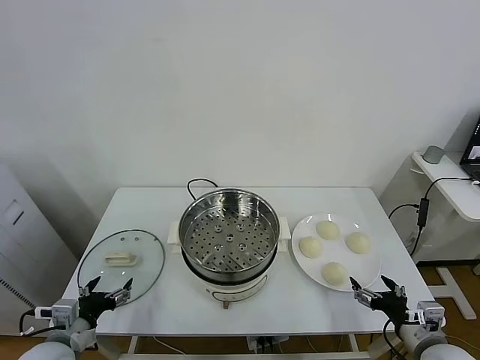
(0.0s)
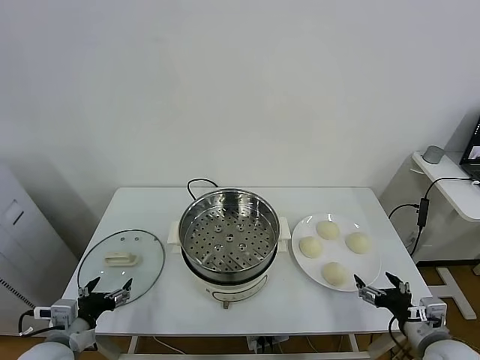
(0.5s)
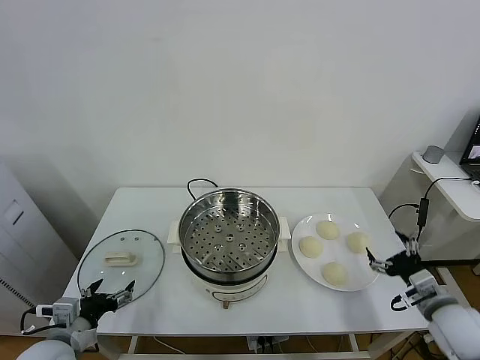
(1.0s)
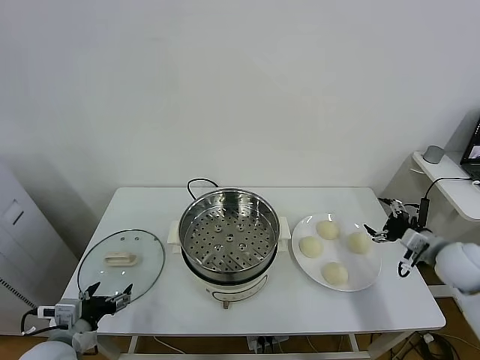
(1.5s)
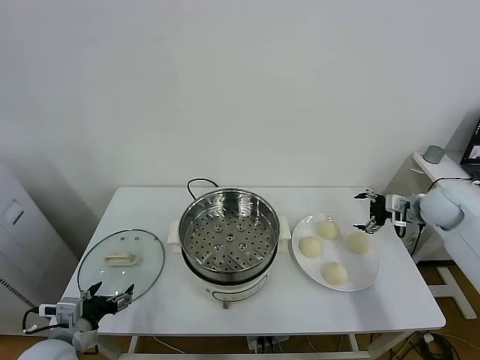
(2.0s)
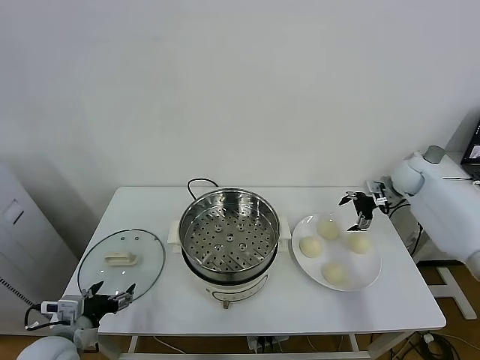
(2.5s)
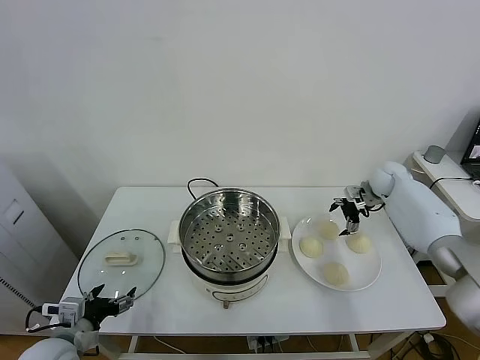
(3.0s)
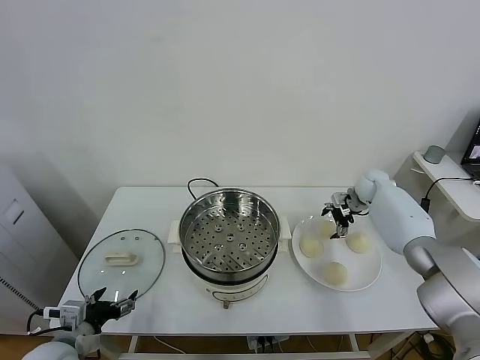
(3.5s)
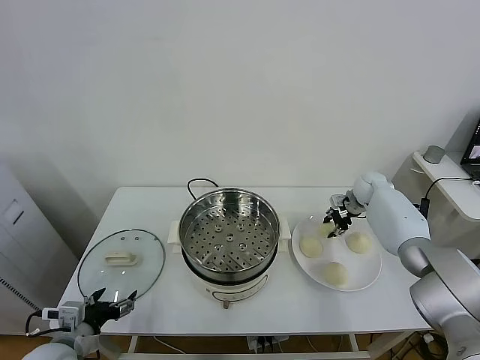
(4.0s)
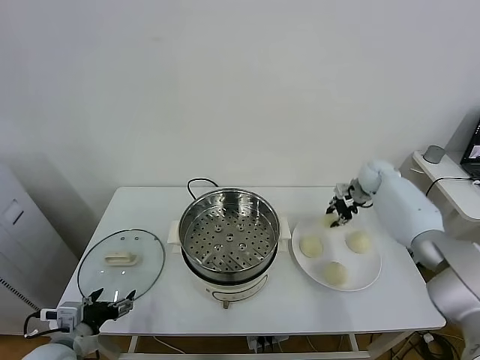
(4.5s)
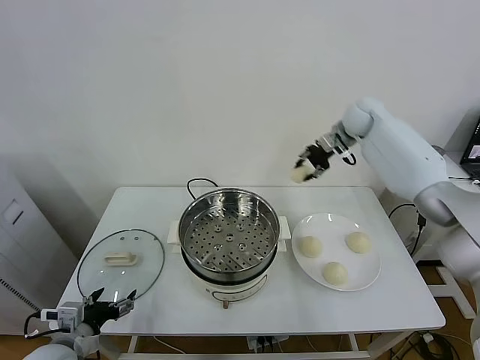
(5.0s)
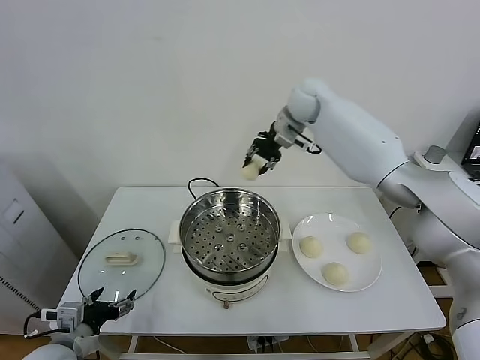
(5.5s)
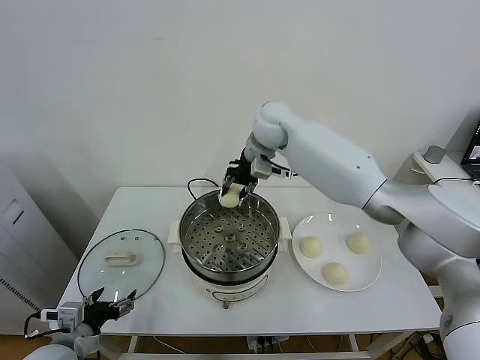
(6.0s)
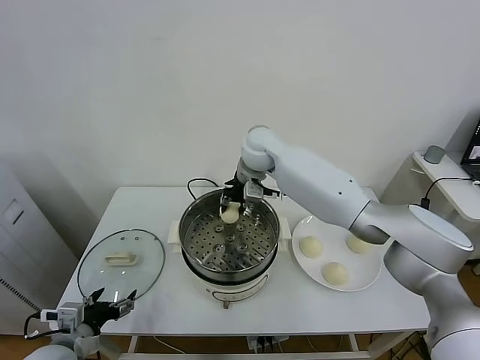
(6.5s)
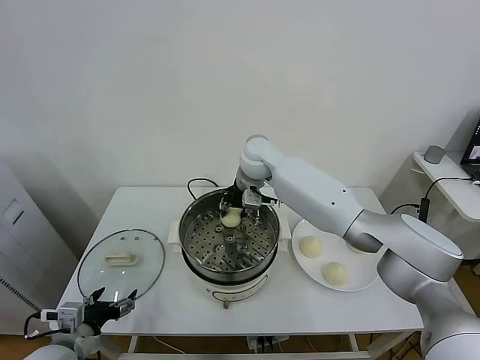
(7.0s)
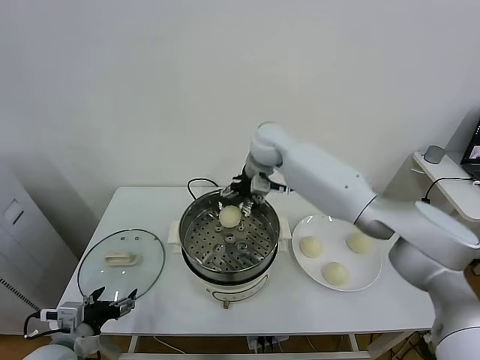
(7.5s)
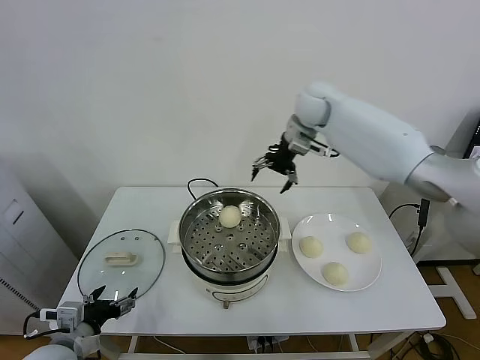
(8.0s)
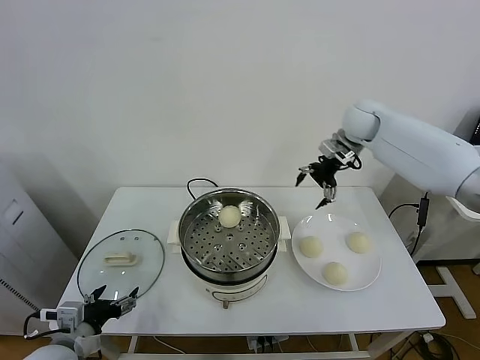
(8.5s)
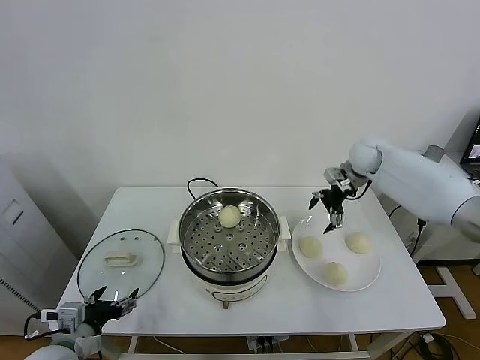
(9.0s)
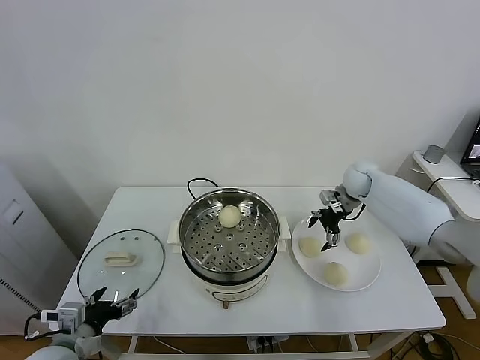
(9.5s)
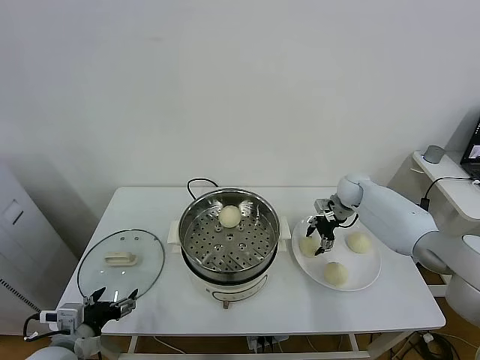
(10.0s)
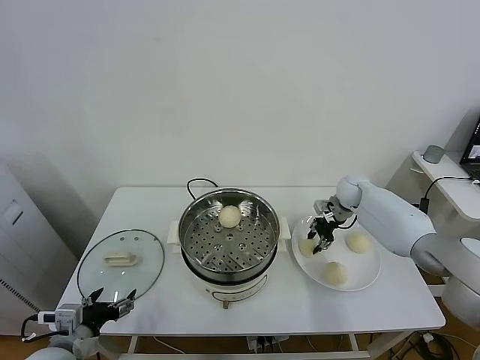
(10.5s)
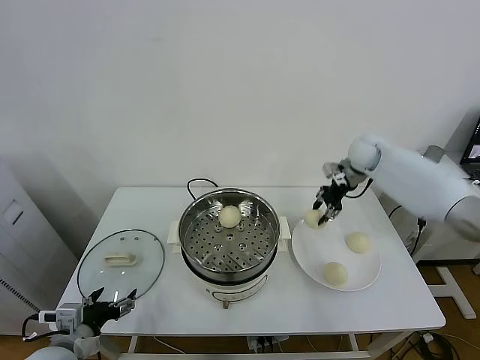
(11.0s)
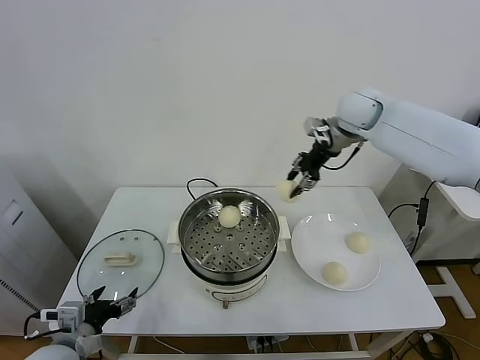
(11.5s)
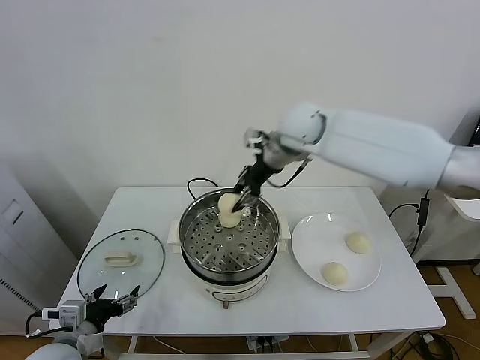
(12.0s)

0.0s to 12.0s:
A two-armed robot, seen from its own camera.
Task of the whole recording: take steamed baozi put them in steamer.
Step, 0.0s to 4.0s: Grasp the baozi in the plate with right gripper.
Step, 4.5s to 7.0s: Place the baozi on the steamer with right gripper.
Step, 7.5s to 10.0s: Grasp the baozi in the plate with right gripper.
2.0s to 4.0s: The right gripper heads forward, to the left and downward, covering roughly 15 cm, and closes.
4.0s to 6.0s: The right gripper travels to the left and upward by approximately 40 cm.
6.0s to 8.0s: The right gripper shifts about 15 cm to the right, and opens.
8.0s to 10.0s: The right gripper travels downward and to the right by about 30 cm, and closes.
10.0s to 12.0s: The right gripper goes roughly 30 cm upward and to the left, and closes up.

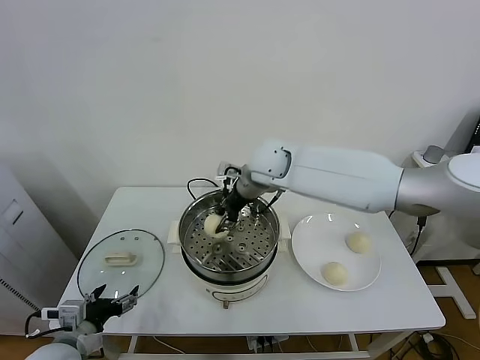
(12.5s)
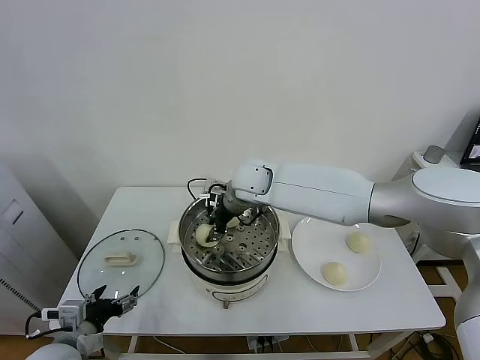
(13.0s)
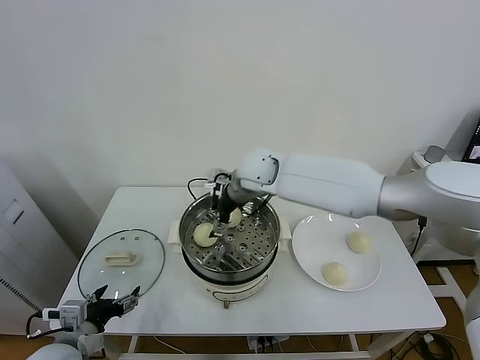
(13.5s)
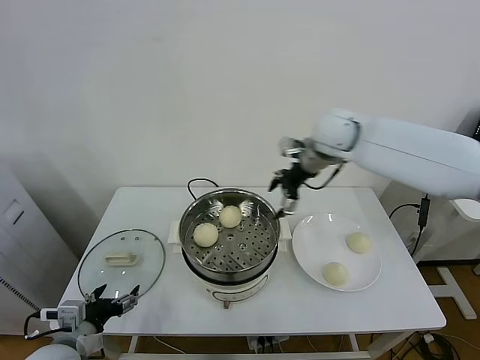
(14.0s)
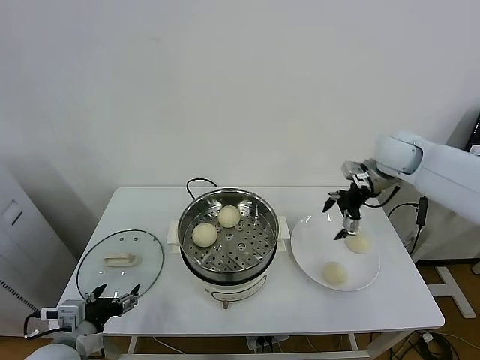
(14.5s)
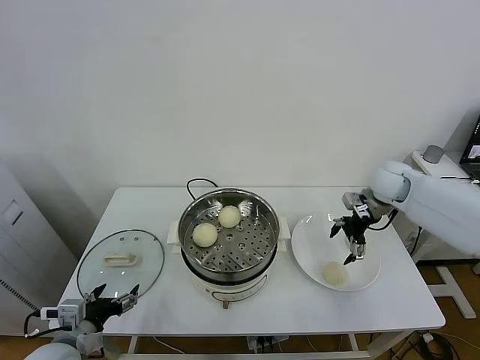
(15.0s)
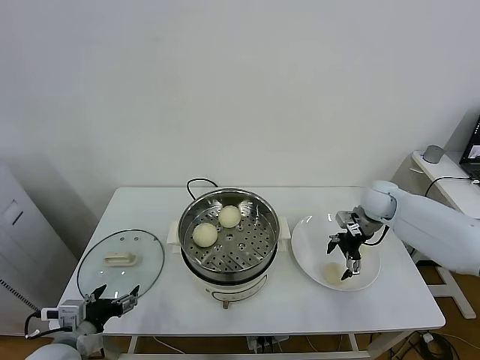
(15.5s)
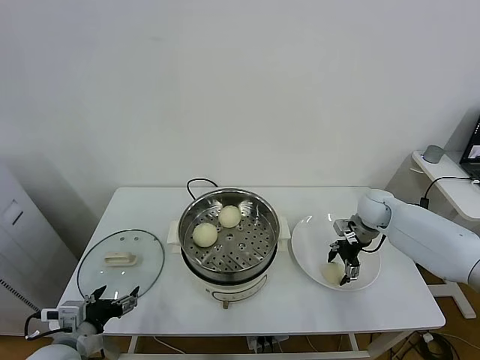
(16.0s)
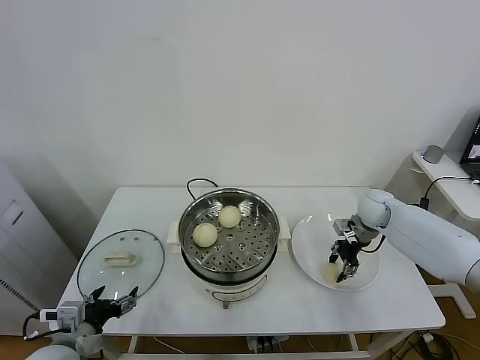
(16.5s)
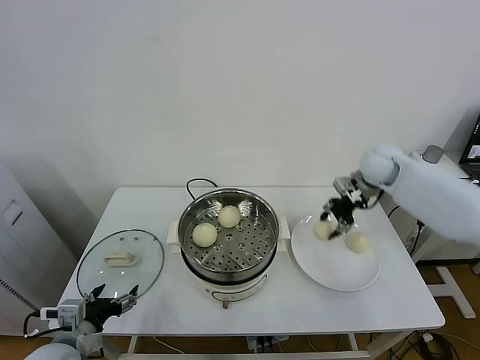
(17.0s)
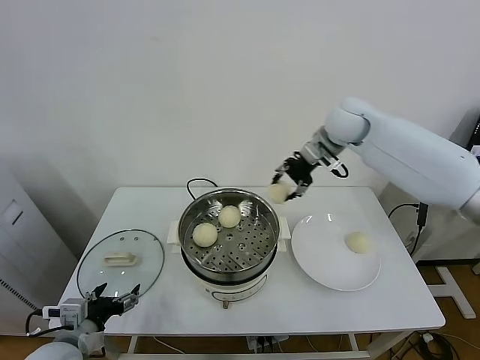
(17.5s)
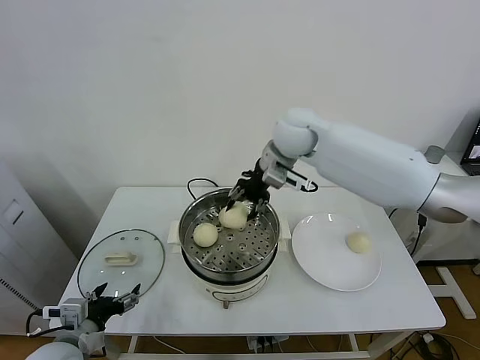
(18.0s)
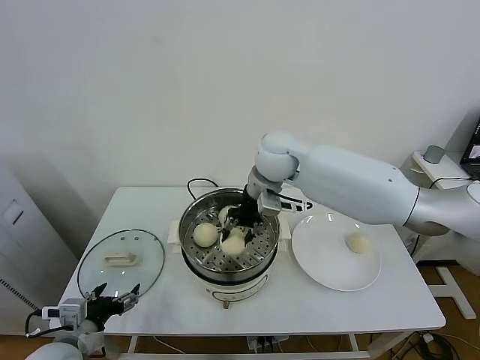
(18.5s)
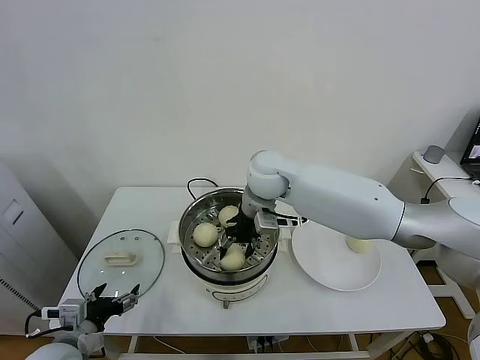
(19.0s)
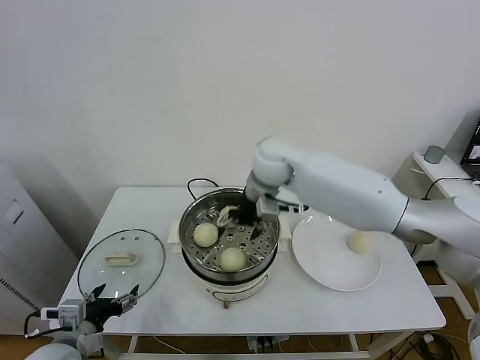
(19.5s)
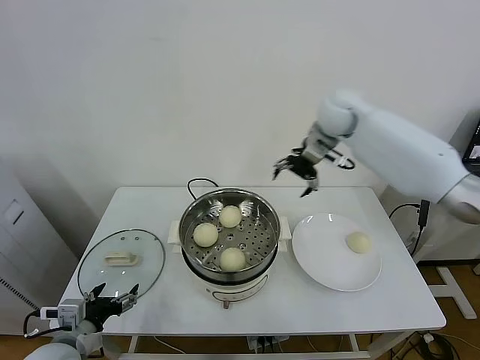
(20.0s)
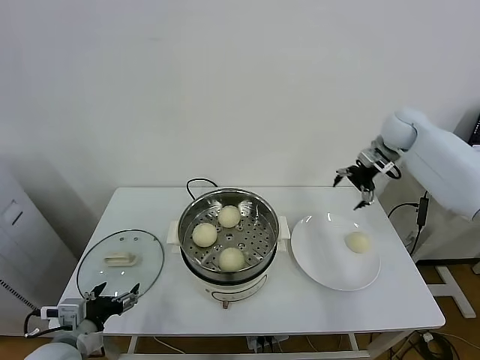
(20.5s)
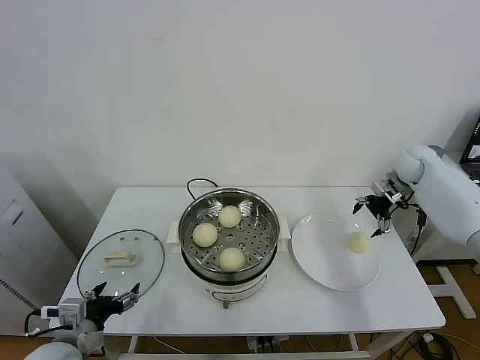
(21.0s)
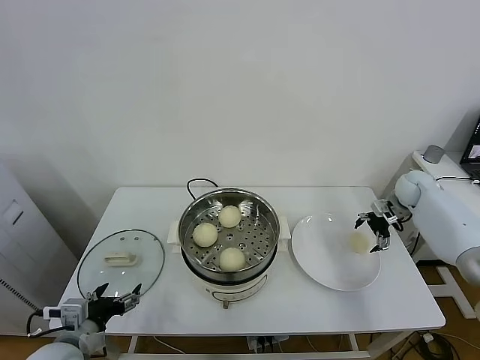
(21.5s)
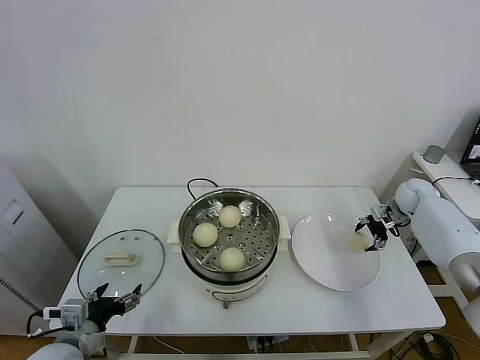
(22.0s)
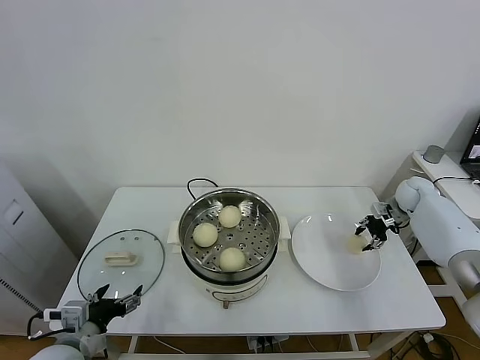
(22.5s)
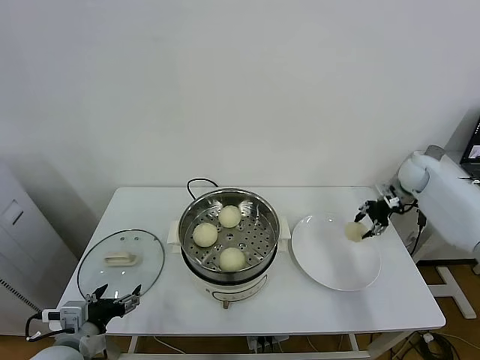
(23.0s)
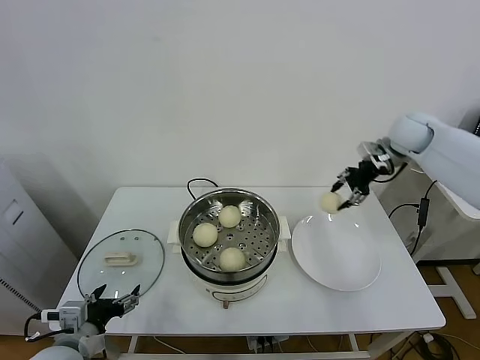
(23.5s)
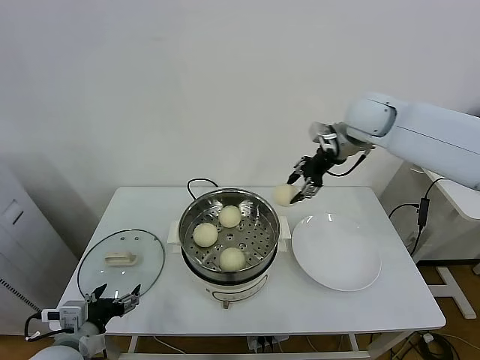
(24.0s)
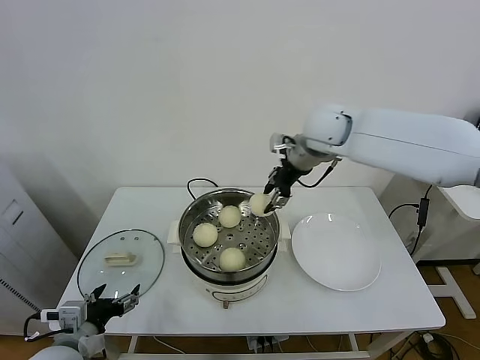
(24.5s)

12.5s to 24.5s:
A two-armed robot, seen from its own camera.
Task of the whole recording: take steamed baozi put them in steamer.
Step, 14.0s to 16.5s: Grasp the baozi in the plate with right gripper.
Step, 17.0s to 19.0s: Place the baozi on the steamer with right gripper.
Step, 19.5s to 22.0s: Grasp the baozi in the plate with right gripper.
12.5s to 14.5s: The right gripper is displaced to the right by some 30 cm, and opens its fingers.
14.5s to 16.5s: The right gripper is displaced downward by roughly 15 cm, and closes up.
16.5s to 18.5s: The right gripper moves to the left and upward, roughly 35 cm.
18.5s to 20.5s: The right gripper moves to the right, approximately 30 cm, and opens.
20.5s to 22.5s: The right gripper moves downward and to the right, about 20 cm, and closes up.
22.5s to 24.5s: The right gripper heads to the left and upward, covering about 40 cm.

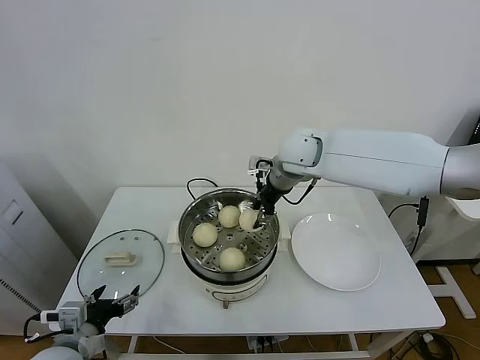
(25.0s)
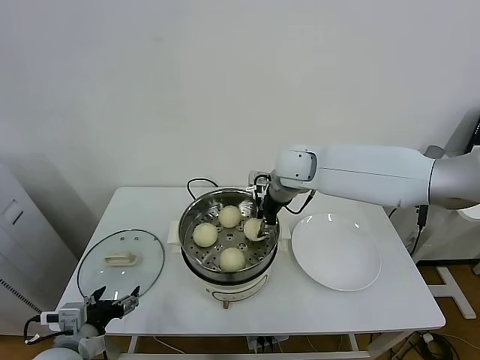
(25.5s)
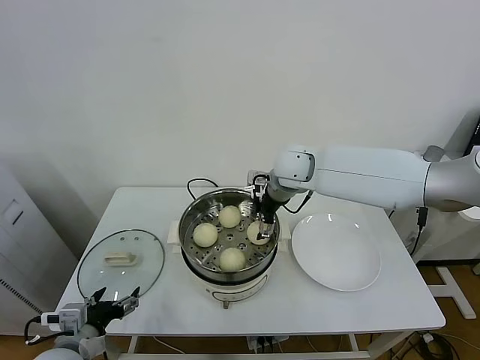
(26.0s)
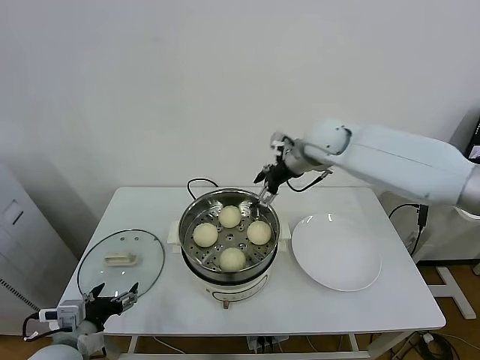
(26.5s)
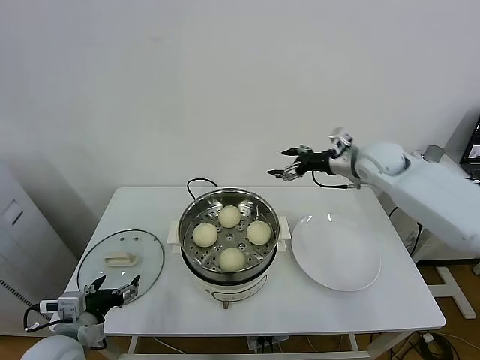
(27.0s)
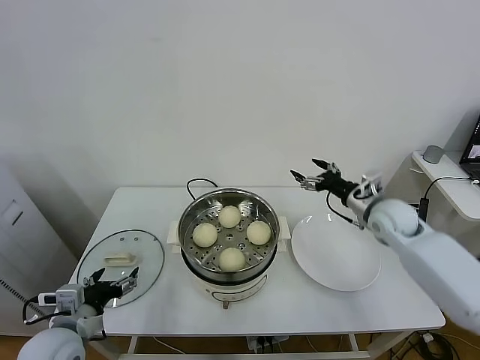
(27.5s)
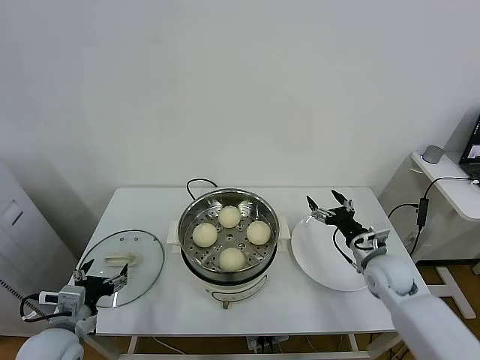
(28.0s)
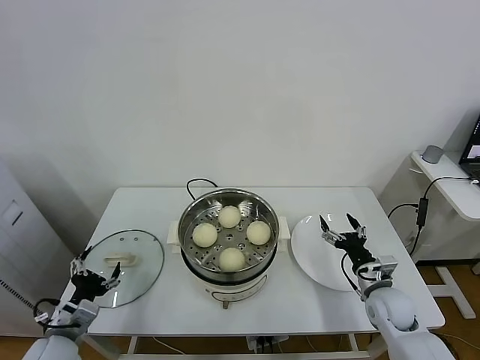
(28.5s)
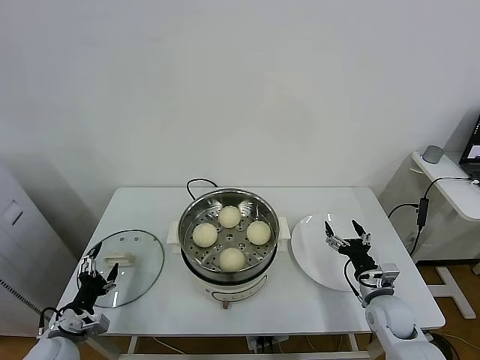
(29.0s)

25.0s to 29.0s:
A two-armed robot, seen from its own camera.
Task of the whole recording: take steamed baozi put them in steamer.
25.0s to 27.0s: The right gripper goes about 20 cm to the right, and opens.
27.0s to 29.0s: The right gripper is displaced downward and backward by approximately 35 cm. Meanwhile the left gripper shifts about 10 cm downward and to the left.
